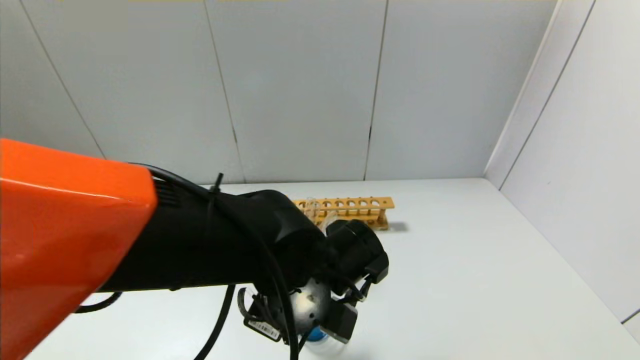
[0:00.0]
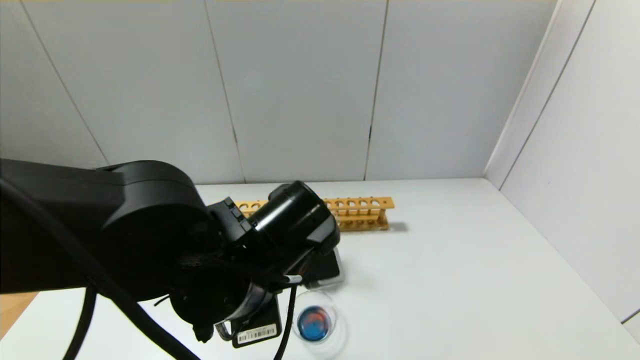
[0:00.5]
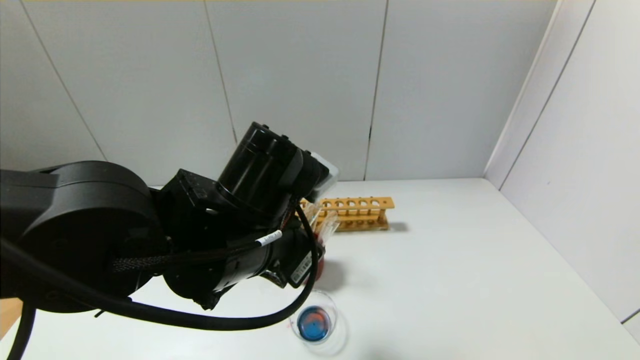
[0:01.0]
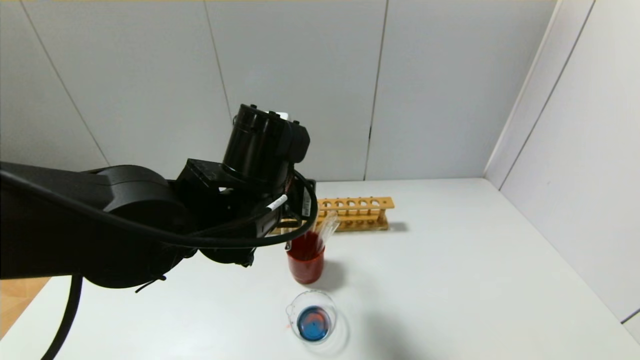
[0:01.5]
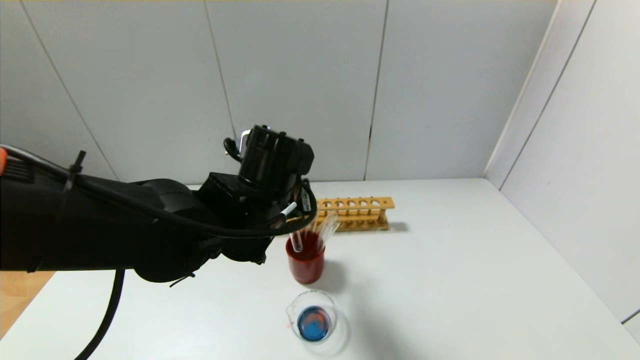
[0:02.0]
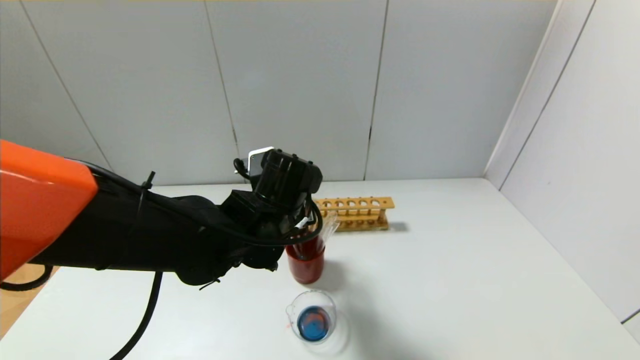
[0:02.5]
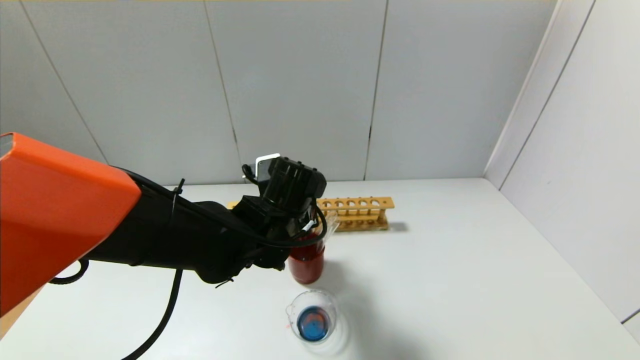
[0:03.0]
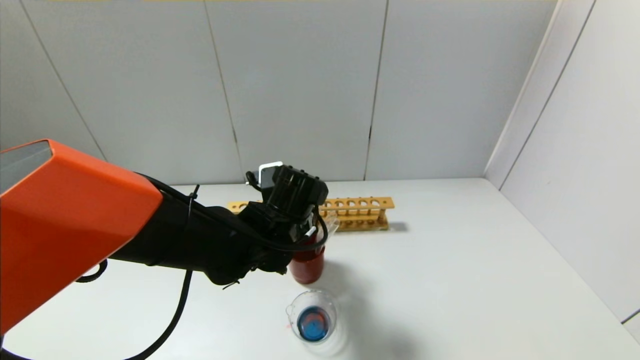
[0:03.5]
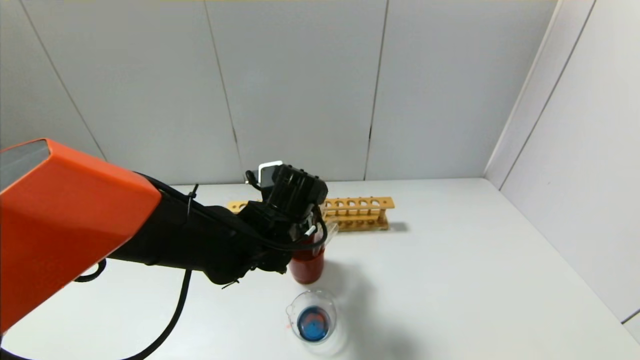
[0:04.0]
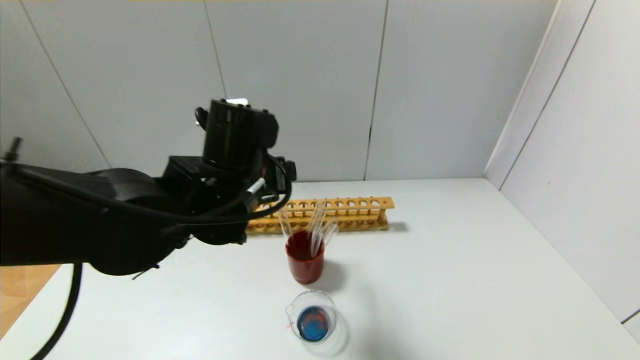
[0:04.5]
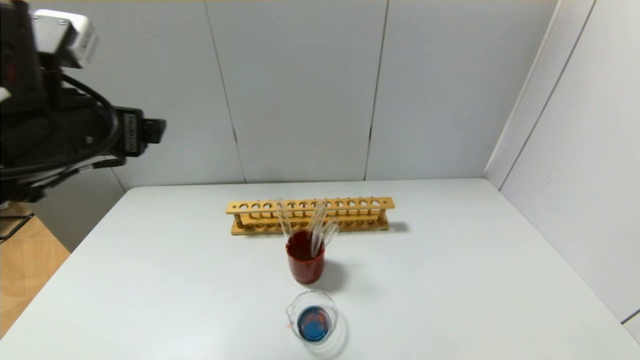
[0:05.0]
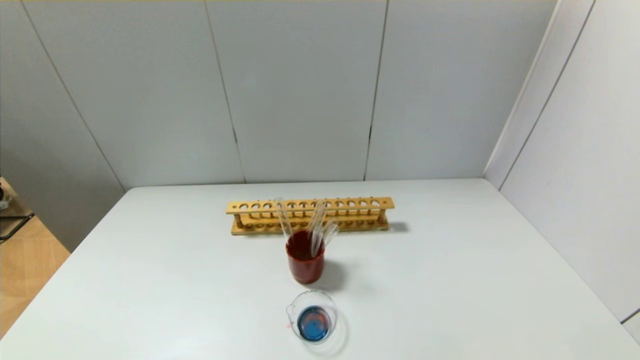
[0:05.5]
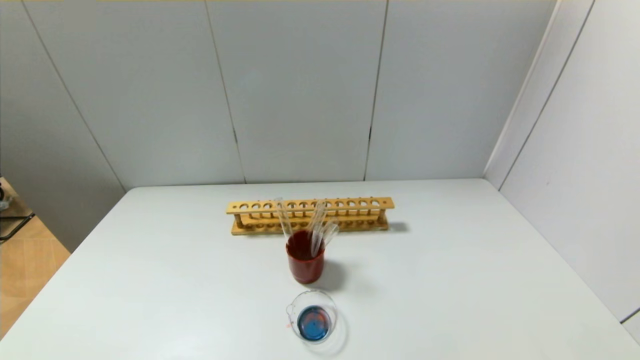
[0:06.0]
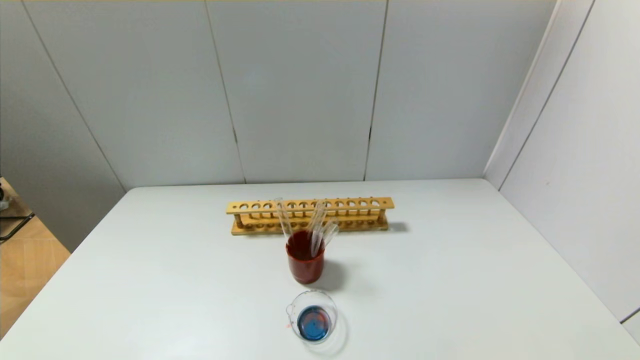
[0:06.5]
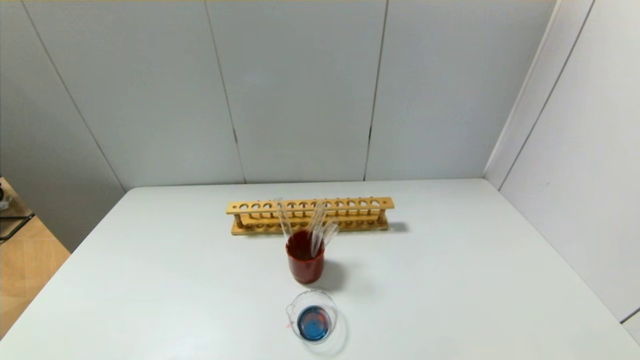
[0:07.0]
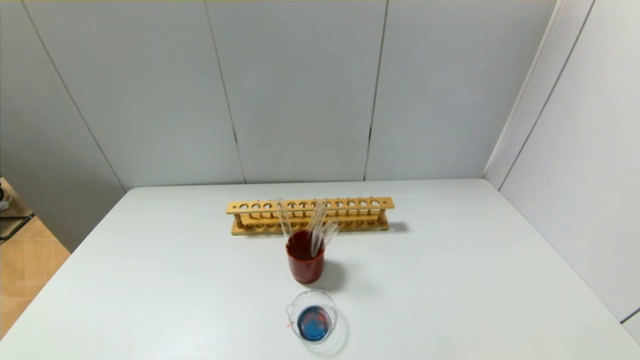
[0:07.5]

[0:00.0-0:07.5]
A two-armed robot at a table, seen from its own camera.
Step, 0:01.0 to 0:03.5: Place the test tube into the brown cup with the left gripper.
0:00.0 to 0:02.0: The left gripper heads upward and forward, covering approximately 10 cm.
0:02.0 to 0:04.0: The left gripper moves downward, some 5 cm, and opens.
0:04.0 to 0:05.5: The left gripper moves to the left, backward and upward, some 40 cm.
